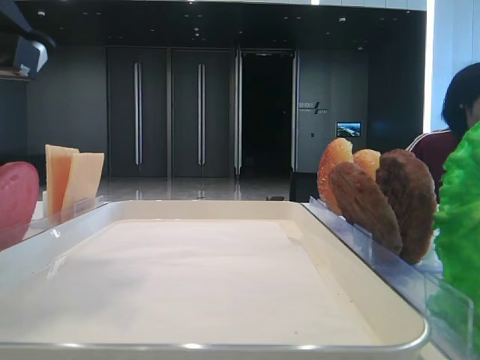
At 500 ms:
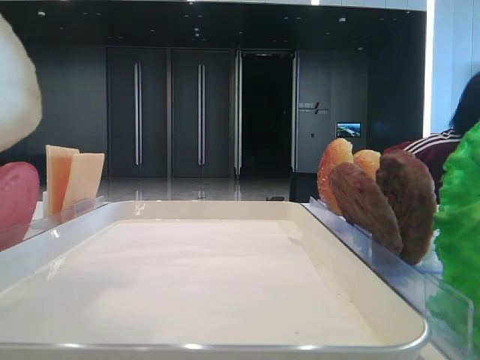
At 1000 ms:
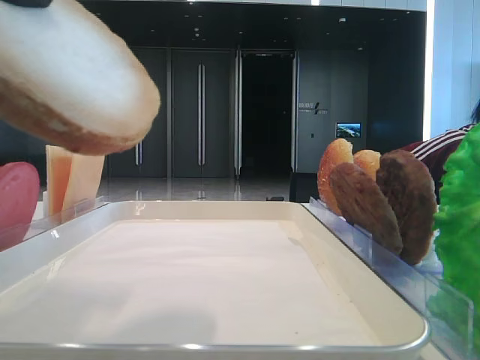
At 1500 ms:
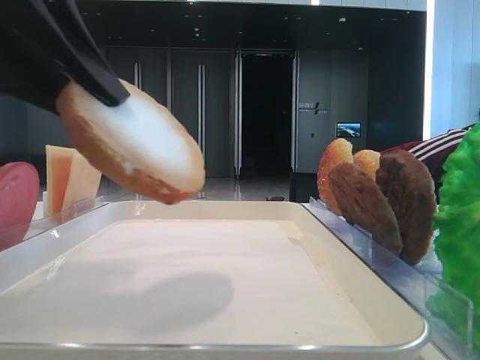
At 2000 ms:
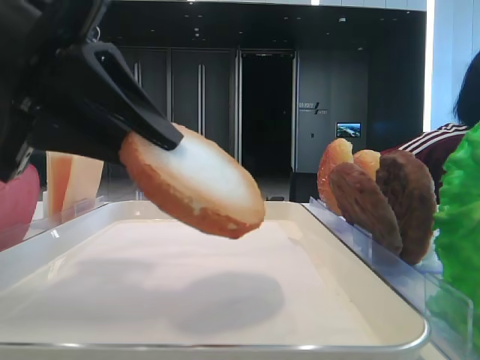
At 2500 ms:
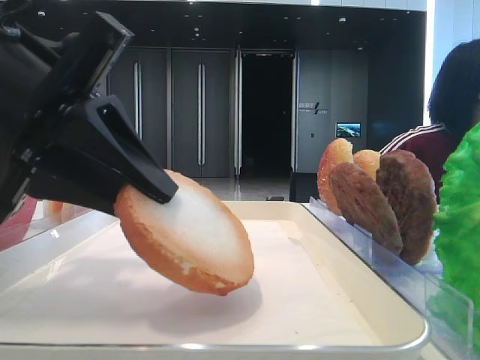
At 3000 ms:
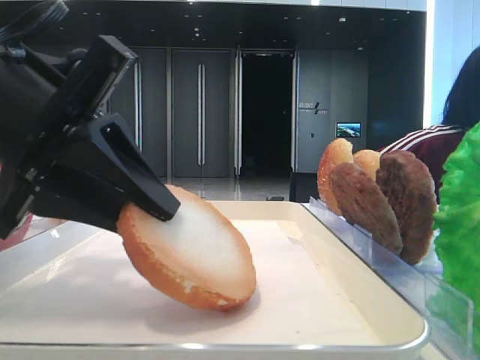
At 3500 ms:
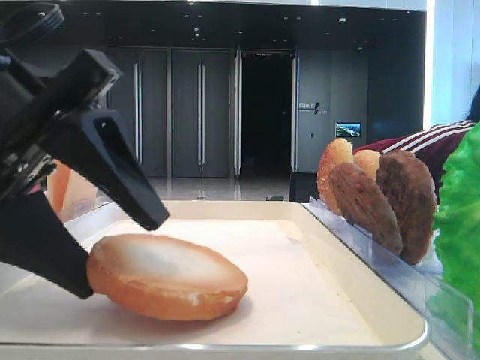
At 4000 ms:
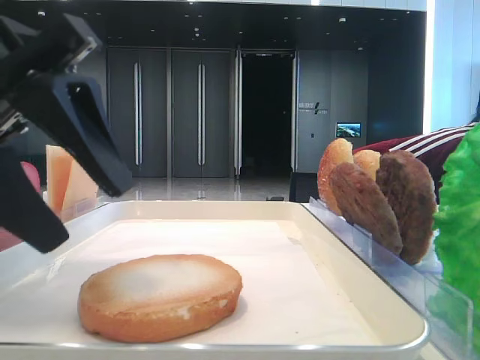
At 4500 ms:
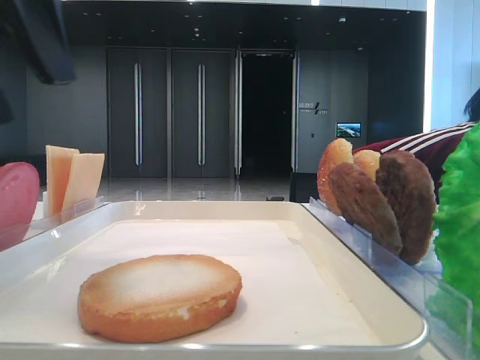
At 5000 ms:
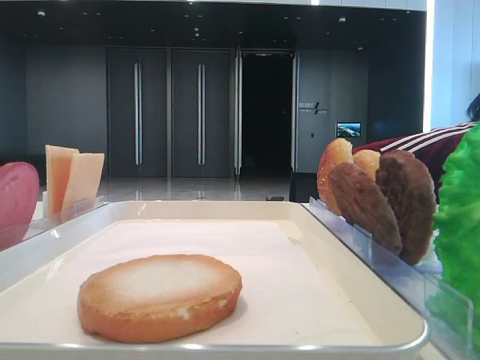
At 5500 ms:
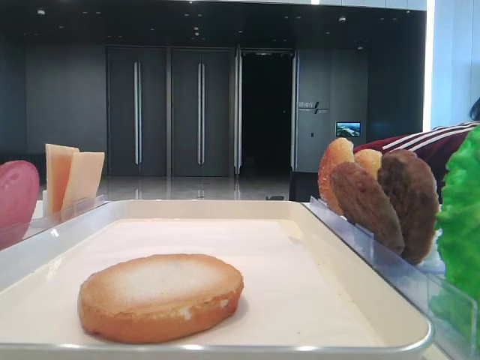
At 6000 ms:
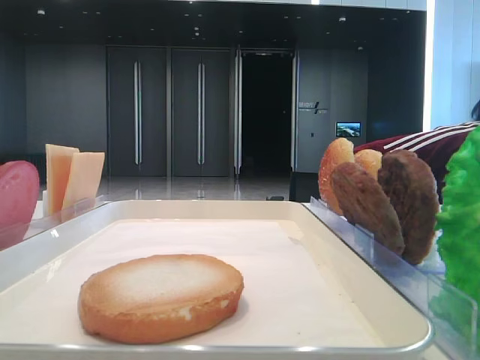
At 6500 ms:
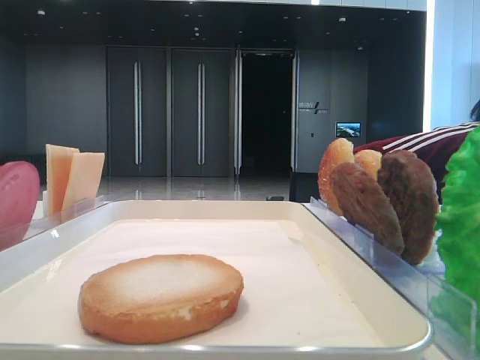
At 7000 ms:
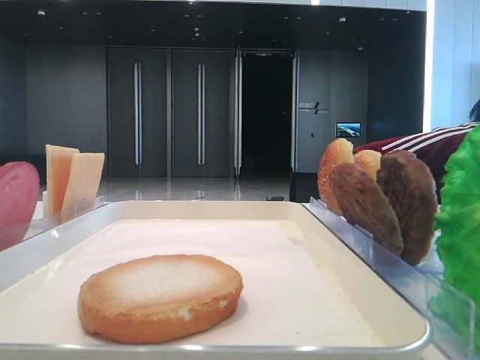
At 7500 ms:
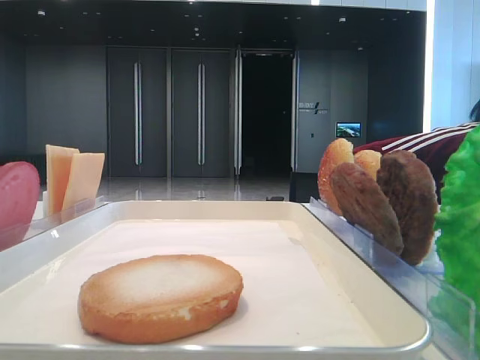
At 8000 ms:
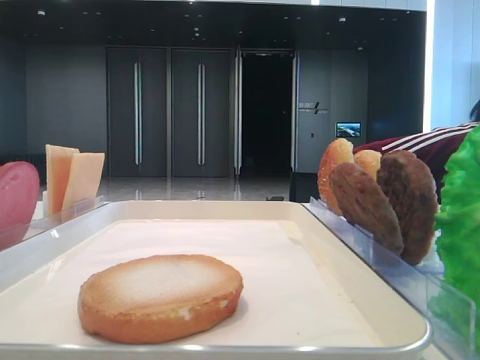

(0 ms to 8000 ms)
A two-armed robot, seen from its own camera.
Step, 500 ms - 3500 ms: Place the bread on the tray with the left hand.
0 ms - 2000 ms: The left gripper goes upward and returns, approximately 10 cm each way.
2000 ms - 4000 ms: The left gripper opens its fingers.
4000 ms - 6000 ms: The left gripper is displaced to the left, backward and upward by about 25 cm.

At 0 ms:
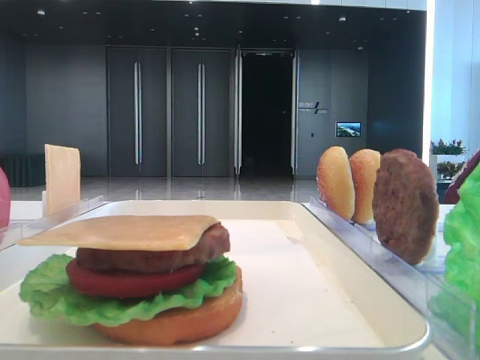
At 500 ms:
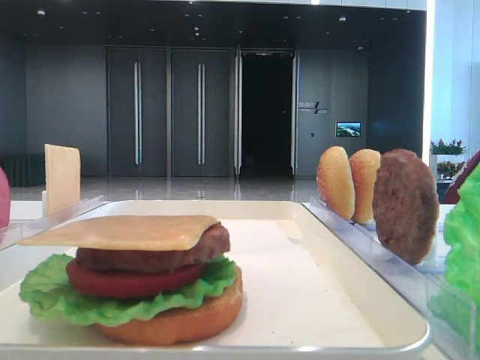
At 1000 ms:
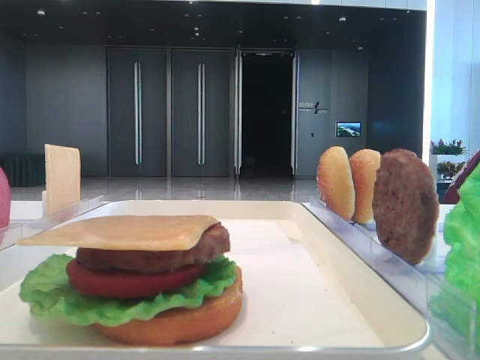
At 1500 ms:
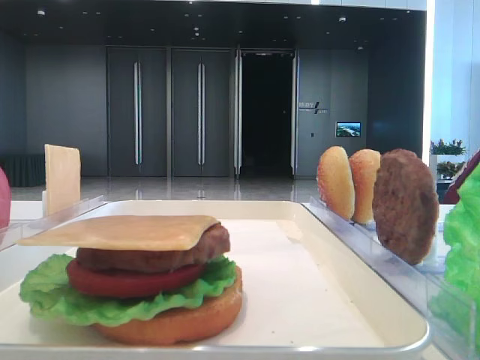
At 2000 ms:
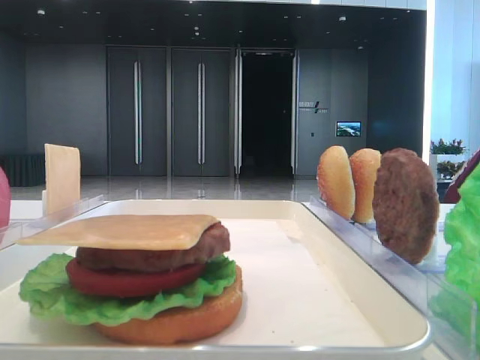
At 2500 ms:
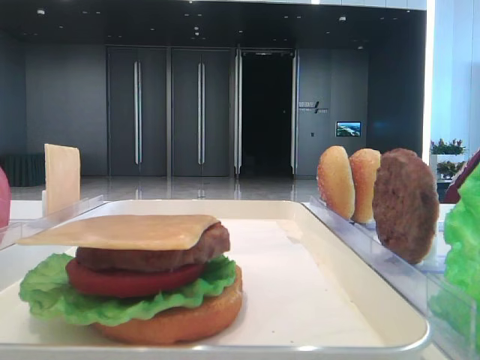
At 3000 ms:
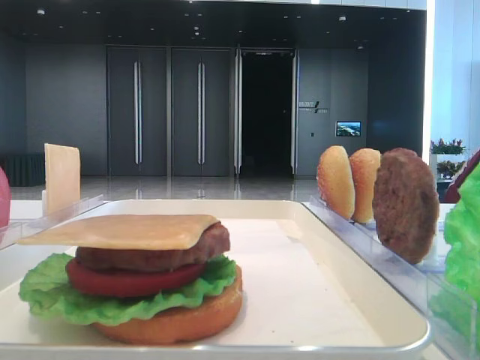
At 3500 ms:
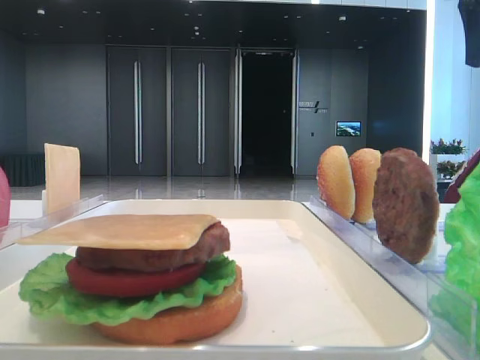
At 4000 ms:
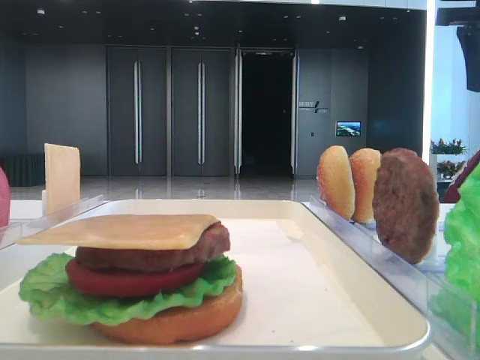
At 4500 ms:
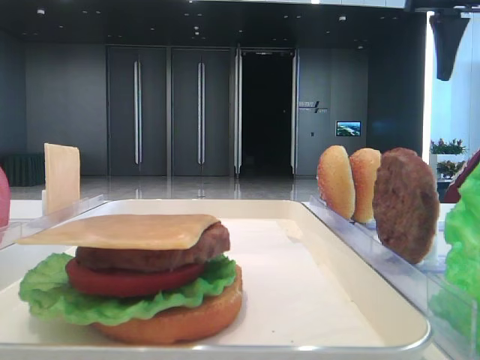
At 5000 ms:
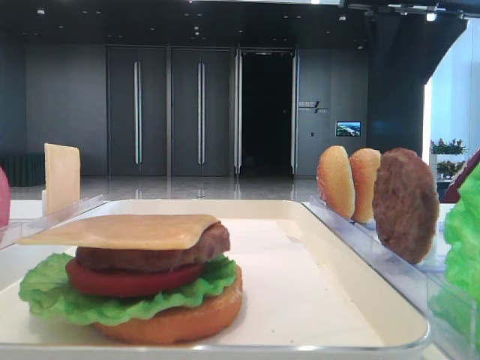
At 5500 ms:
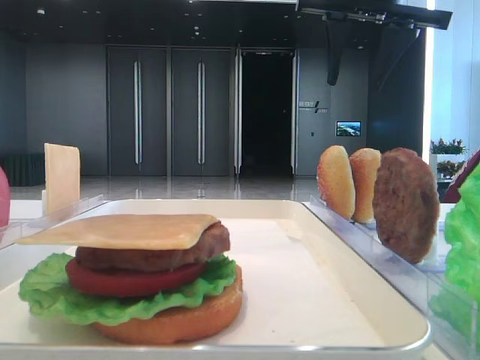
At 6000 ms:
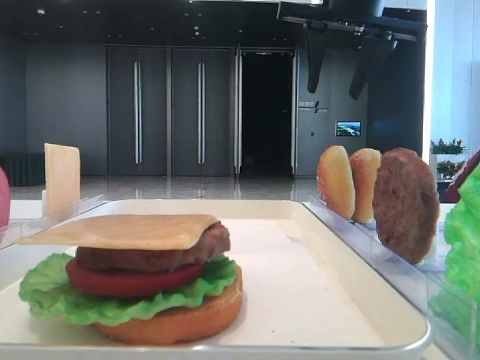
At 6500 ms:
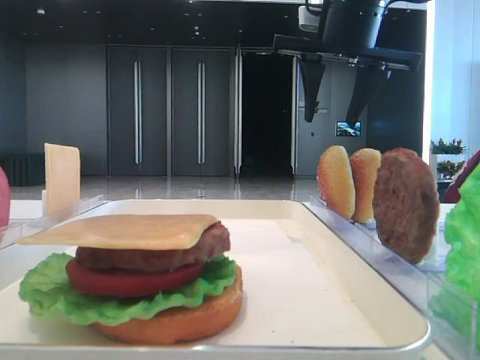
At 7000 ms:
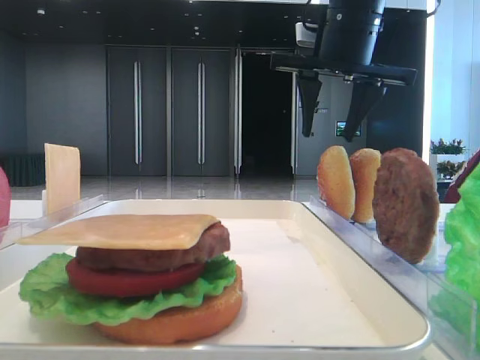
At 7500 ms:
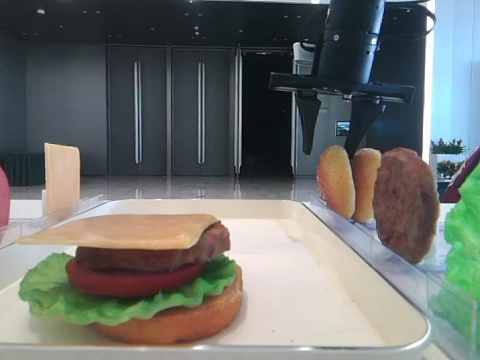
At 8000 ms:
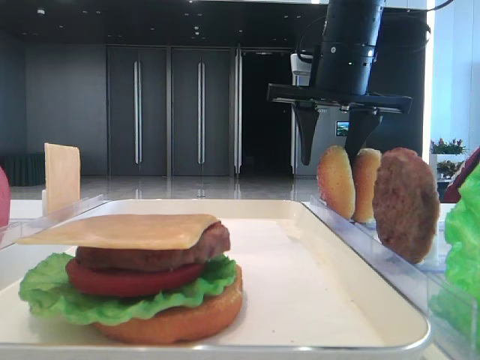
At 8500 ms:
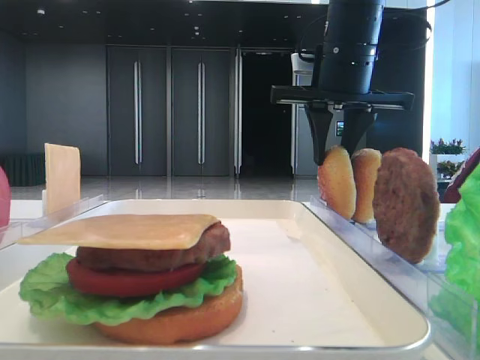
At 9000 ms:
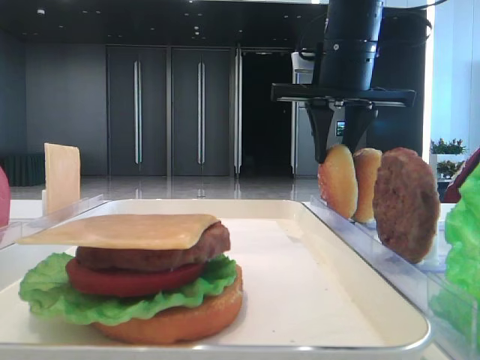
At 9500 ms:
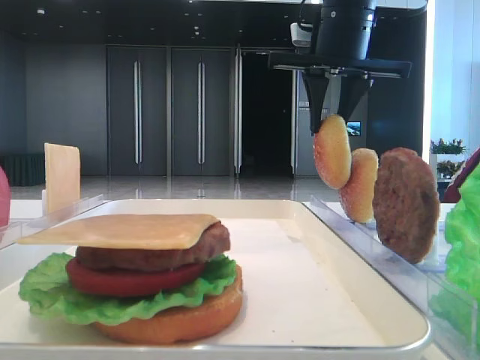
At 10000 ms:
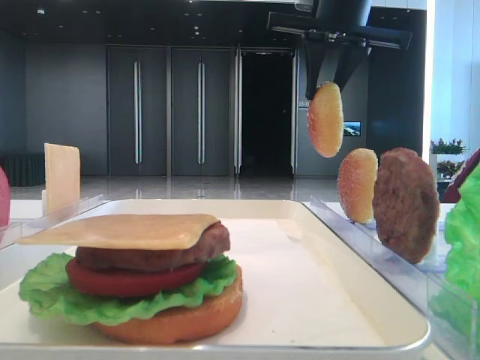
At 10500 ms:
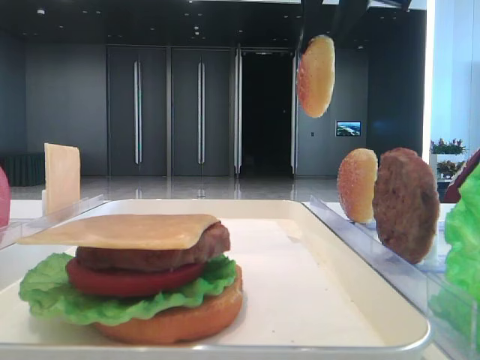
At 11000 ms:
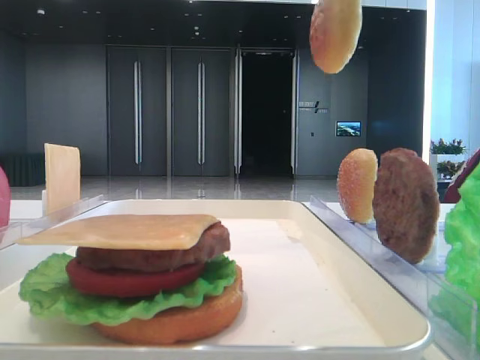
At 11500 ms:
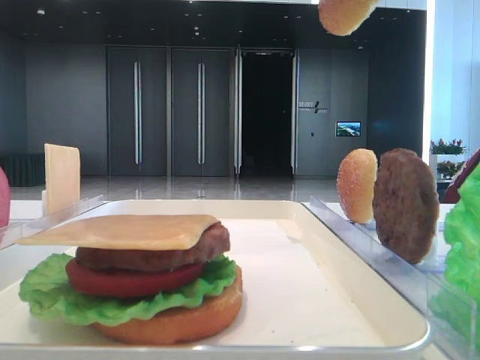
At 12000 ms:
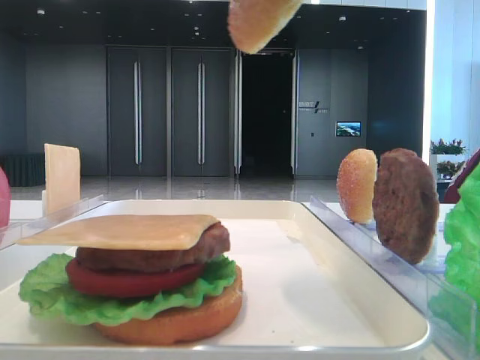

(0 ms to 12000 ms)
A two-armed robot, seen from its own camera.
Step, 0 ms - 8500 ms: Pick up the top bread slice with the right hand.
2000 ms - 4000 ms: The right gripper is displaced forward by roughly 25 cm.
4000 ms - 6000 ms: The right gripper moves to the left, roughly 15 cm.
6000 ms - 8000 ms: The right gripper moves downward, some 10 cm.
8000 ms - 10000 ms: The right gripper goes roughly 10 cm upward, and closes.
10000 ms - 12000 ms: The right gripper is displaced backward by roughly 25 cm.

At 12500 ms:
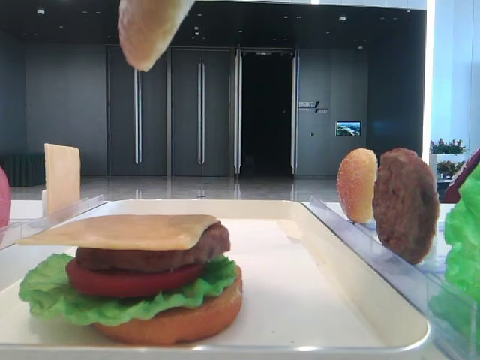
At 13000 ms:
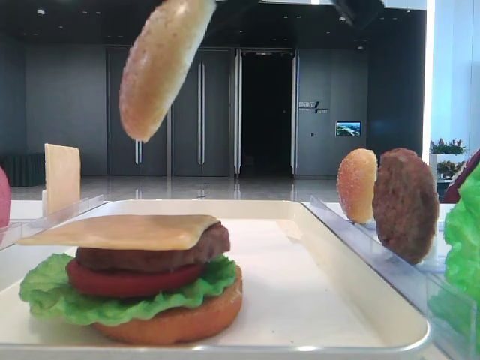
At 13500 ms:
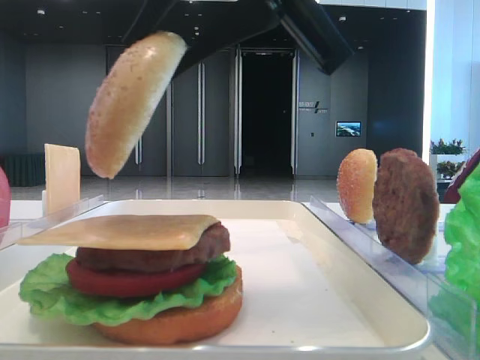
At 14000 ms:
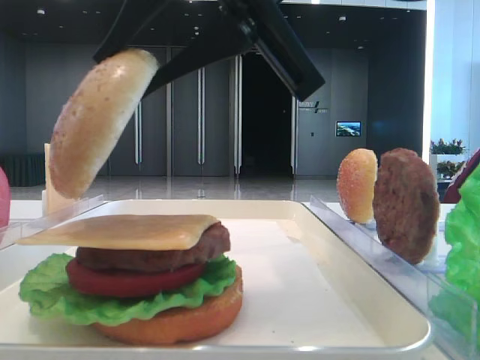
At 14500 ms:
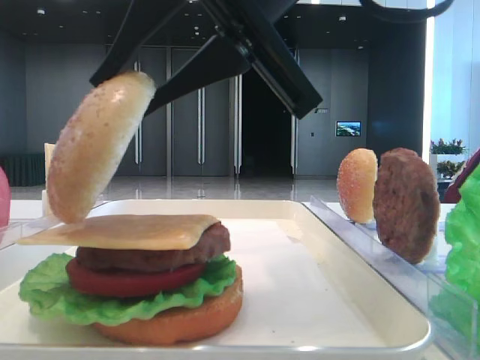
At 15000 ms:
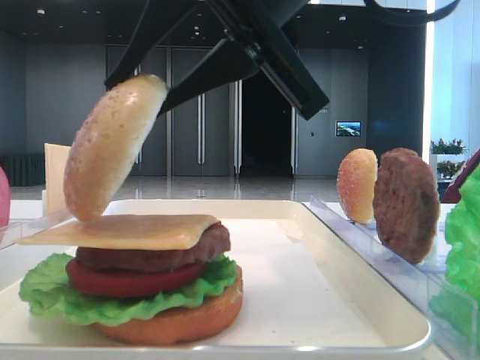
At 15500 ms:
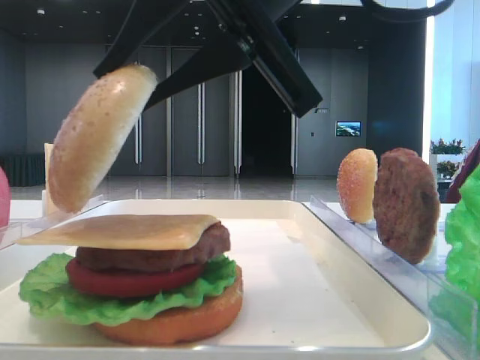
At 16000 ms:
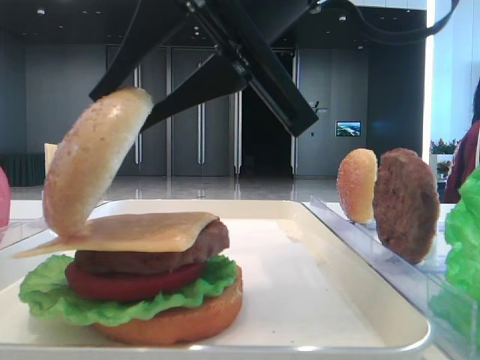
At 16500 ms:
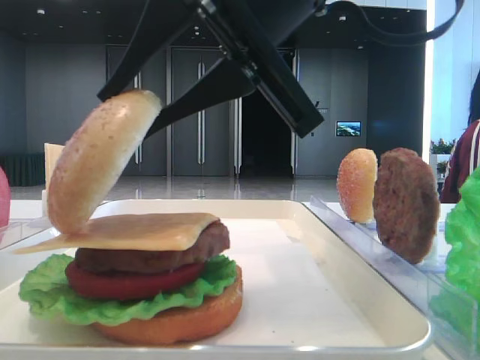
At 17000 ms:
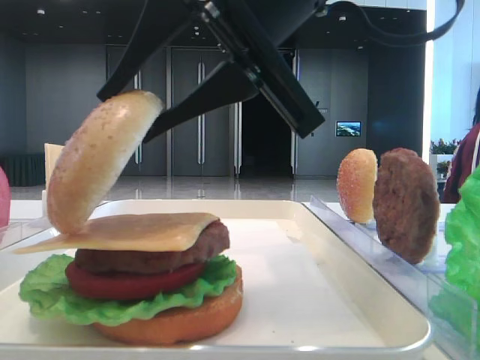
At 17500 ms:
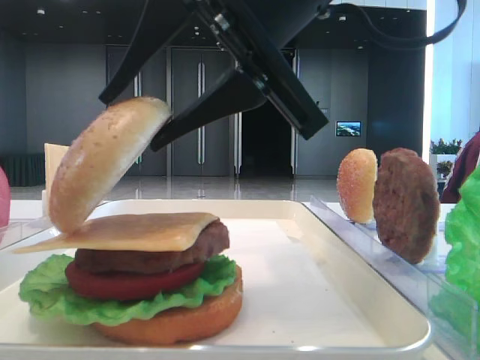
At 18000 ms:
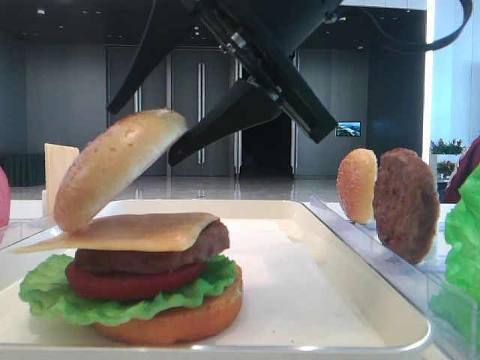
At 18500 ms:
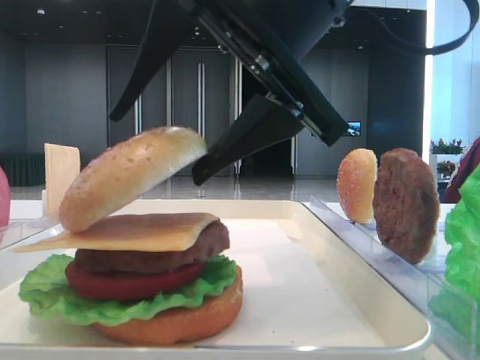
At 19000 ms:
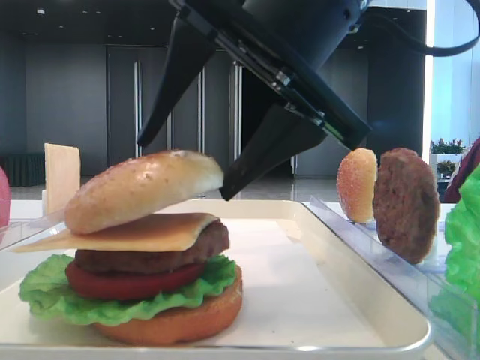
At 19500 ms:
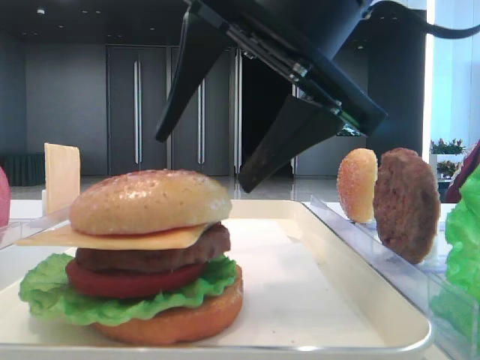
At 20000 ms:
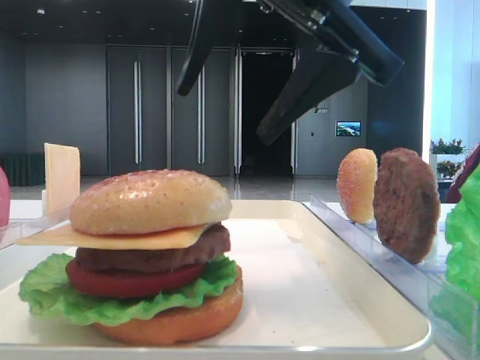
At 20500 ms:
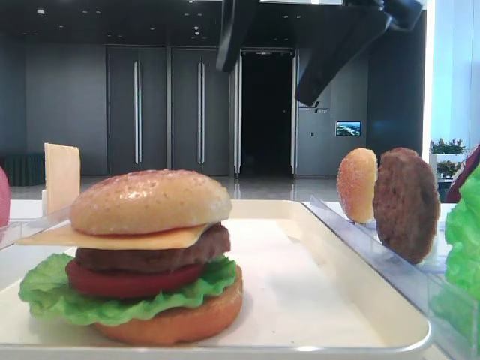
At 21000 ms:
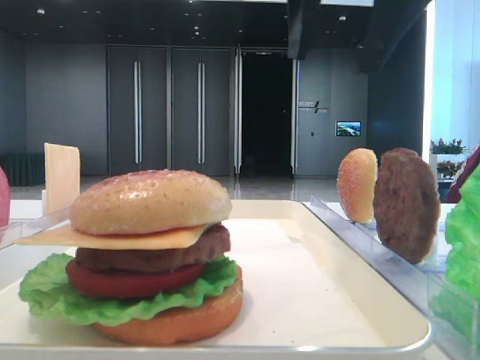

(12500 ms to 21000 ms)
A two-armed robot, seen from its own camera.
Step, 12500 ms - 19000 ms: Place the top bread slice on the cheese with the right hand.
12500 ms - 14500 ms: The right gripper moves downward, some 10 cm.
14500 ms - 16500 ms: The two grippers keep their place.
16500 ms - 19000 ms: The right gripper opens its fingers.
19000 ms - 21000 ms: The right gripper goes roughly 10 cm upward and to the right.
